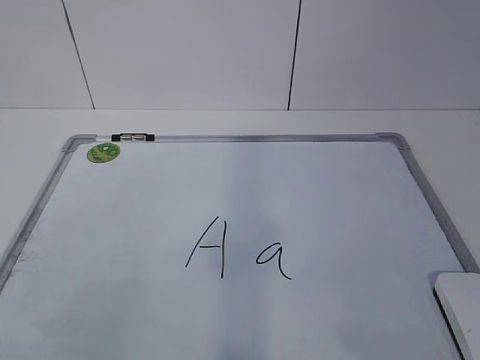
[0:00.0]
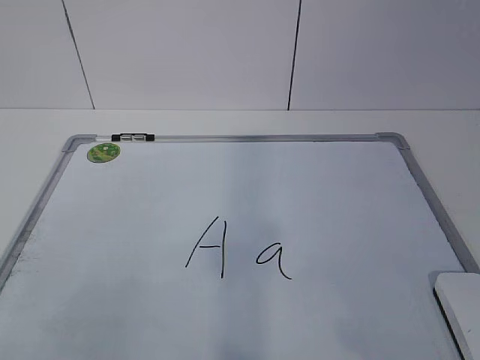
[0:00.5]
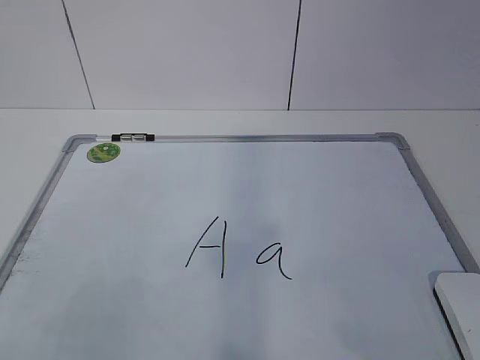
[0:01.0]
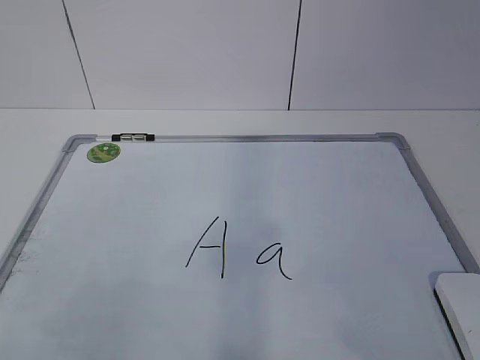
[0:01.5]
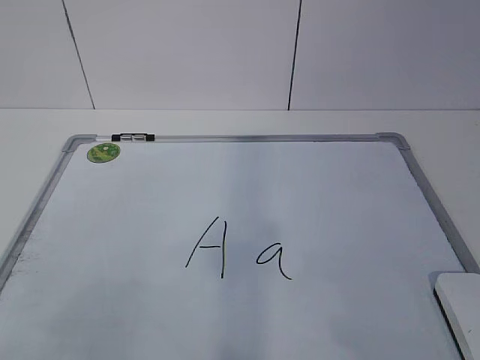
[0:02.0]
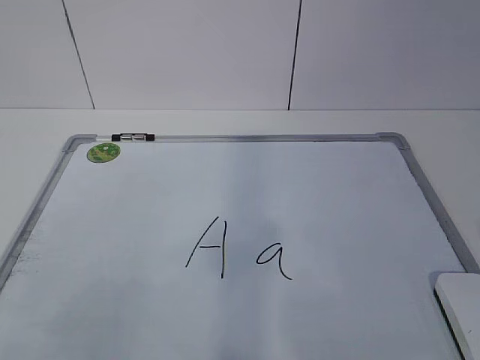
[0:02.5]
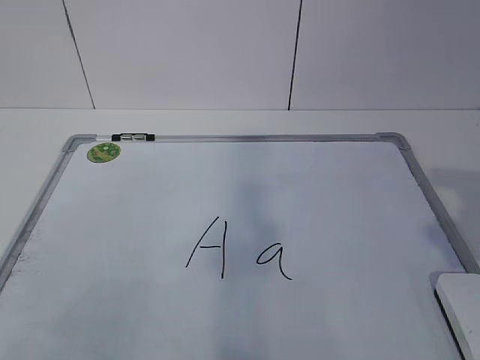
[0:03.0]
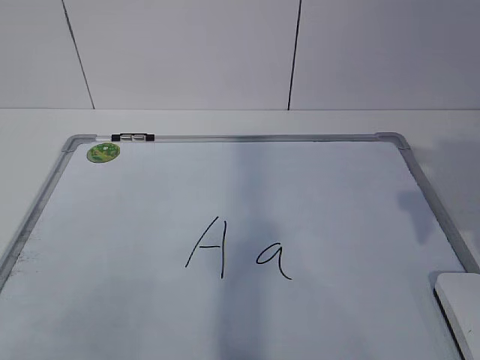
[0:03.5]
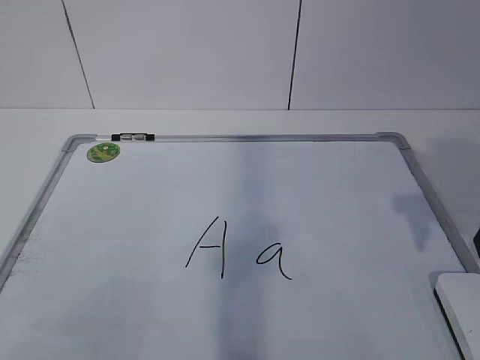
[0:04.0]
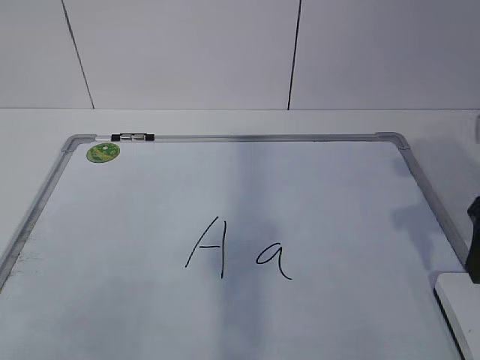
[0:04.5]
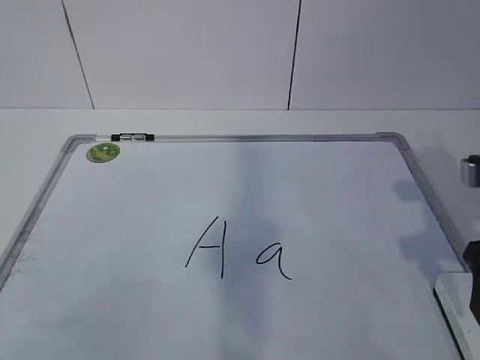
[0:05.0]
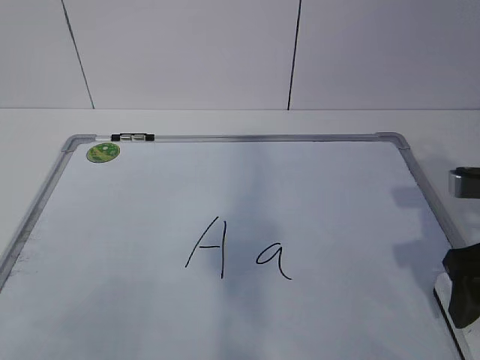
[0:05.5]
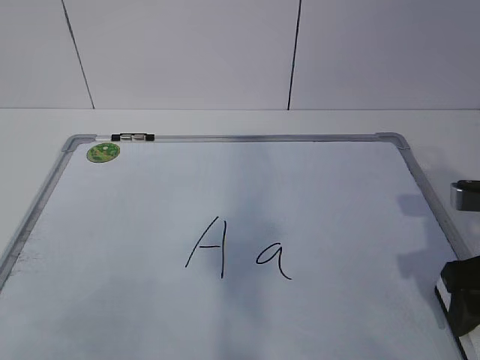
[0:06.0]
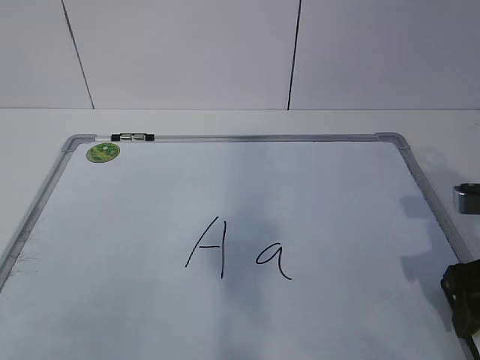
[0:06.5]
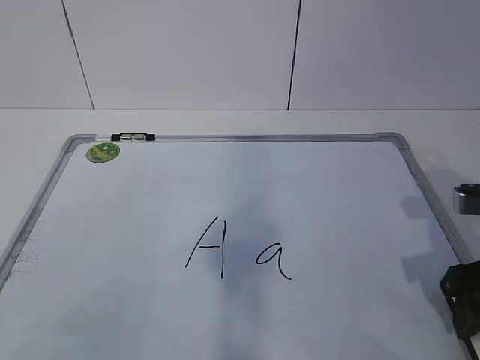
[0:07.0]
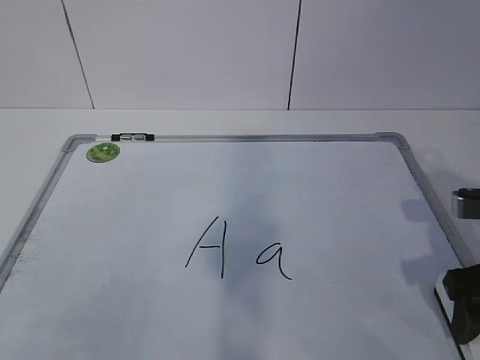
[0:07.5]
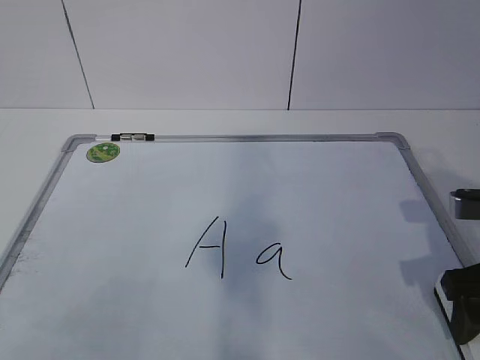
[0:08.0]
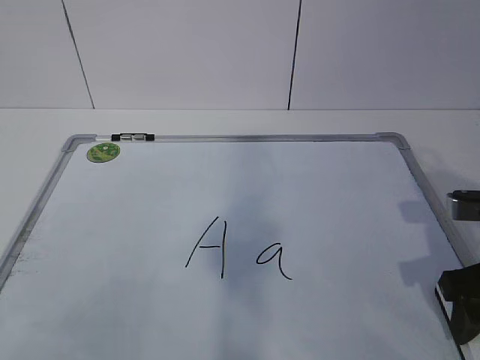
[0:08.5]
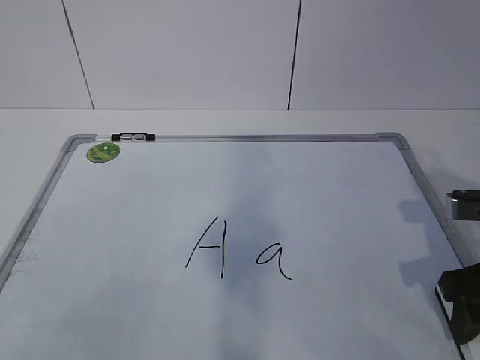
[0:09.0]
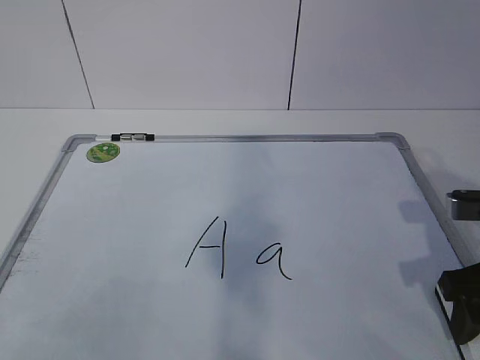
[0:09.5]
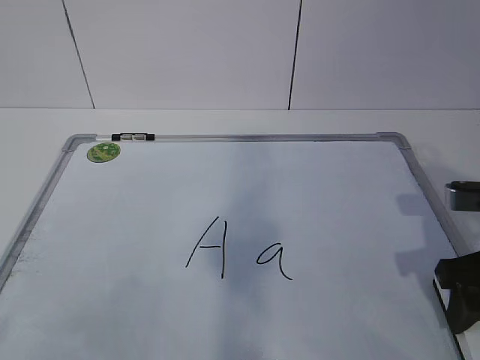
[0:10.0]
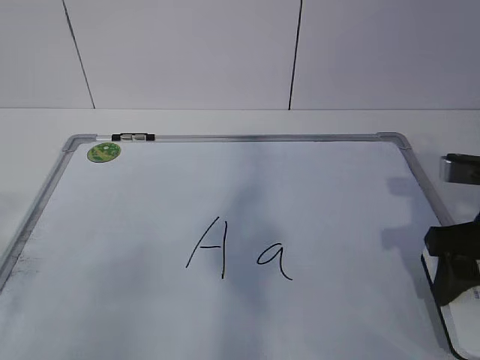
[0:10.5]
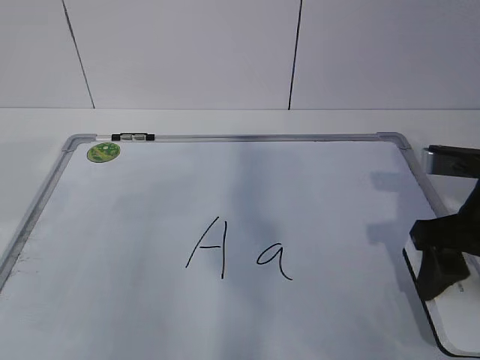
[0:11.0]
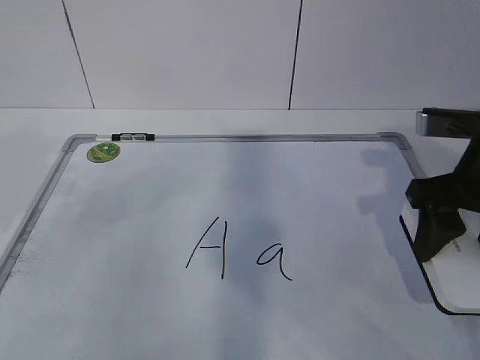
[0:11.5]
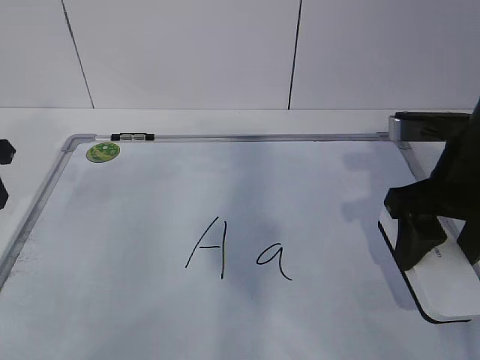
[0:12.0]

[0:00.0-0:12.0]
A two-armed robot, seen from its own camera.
Task of the whole recording: pick up the eraser on the blackboard and erase the letter "a".
Step, 0:00.0 to 0:08.0: Grab the eraser with your right hand.
Step, 0:08.5 to 0:11.5: Hold the drawing board steady with your left hand.
0:02.0 to 0:04.0: The right gripper is displaced forward by some 20 cm, and opens.
0:04.0 to 0:06.0: The right gripper shifts approximately 10 cm downward.
0:06.0 to 0:08.0: Neither gripper changes place.
0:08.0 to 0:10.0: The right gripper closes its fingers.
0:10.0 to 0:12.0: The right gripper is displaced upward by about 5 cm.

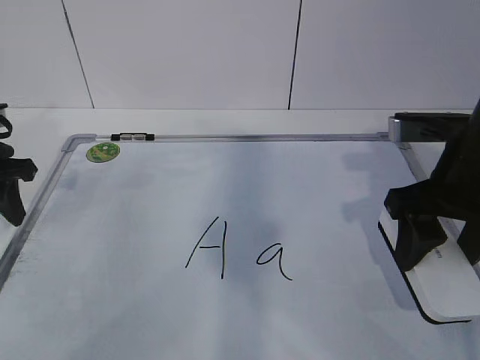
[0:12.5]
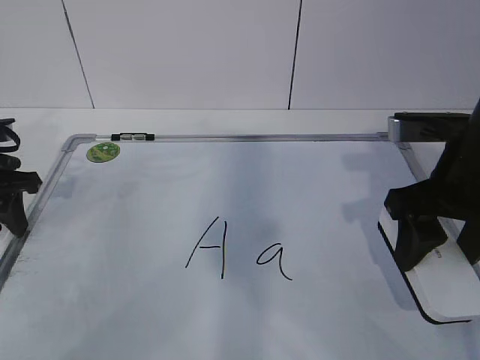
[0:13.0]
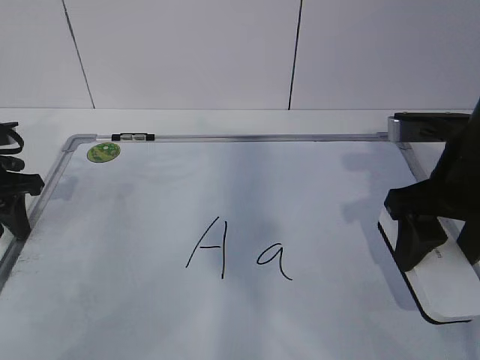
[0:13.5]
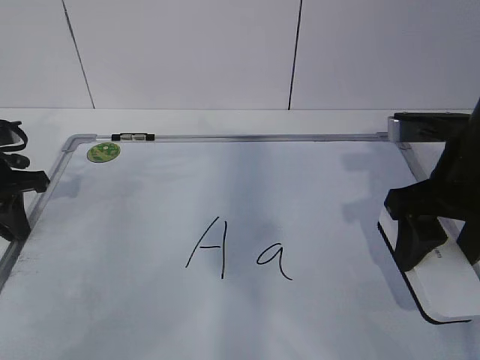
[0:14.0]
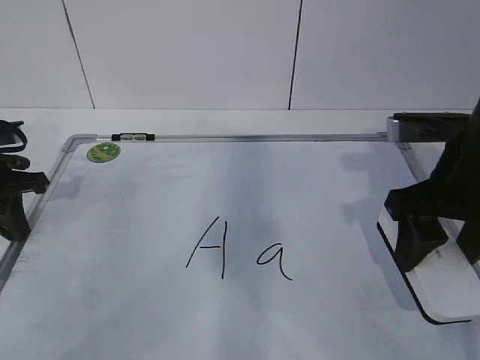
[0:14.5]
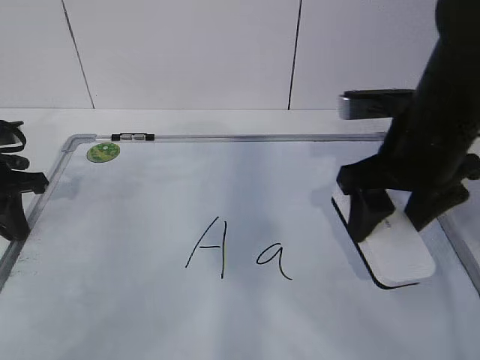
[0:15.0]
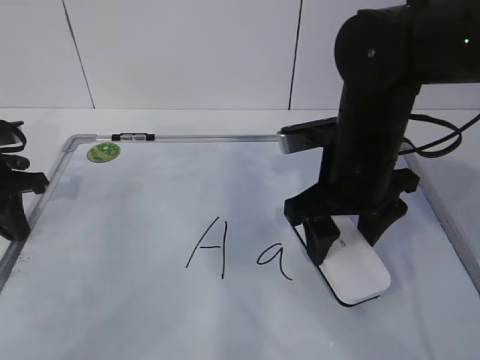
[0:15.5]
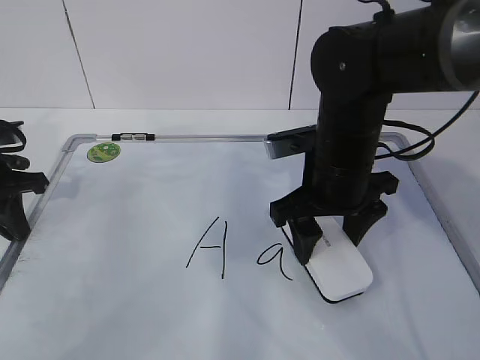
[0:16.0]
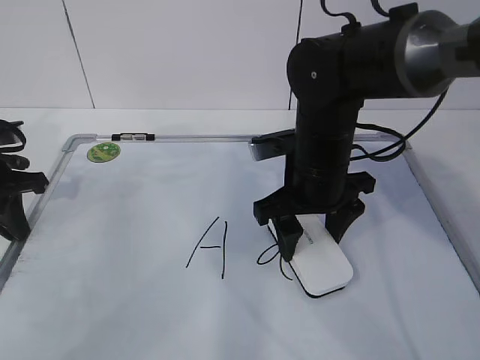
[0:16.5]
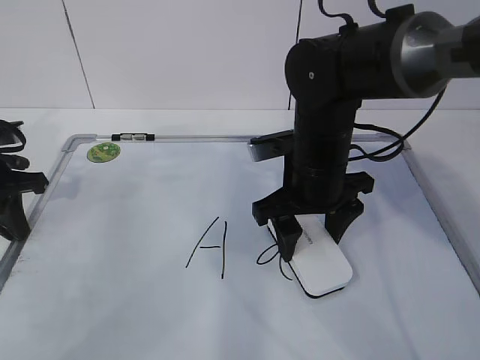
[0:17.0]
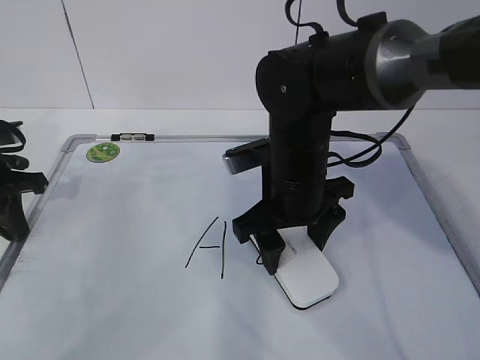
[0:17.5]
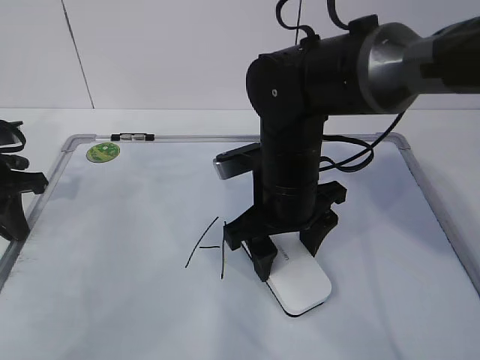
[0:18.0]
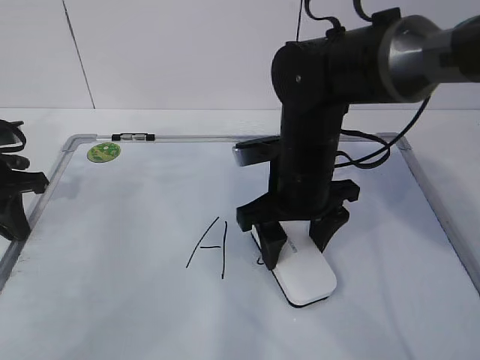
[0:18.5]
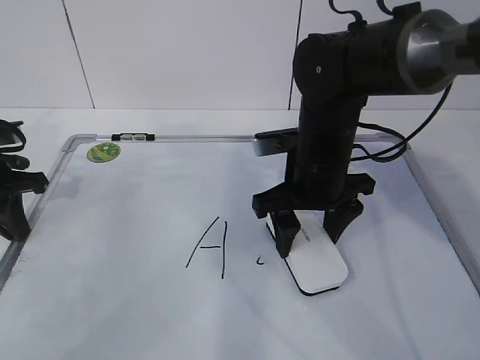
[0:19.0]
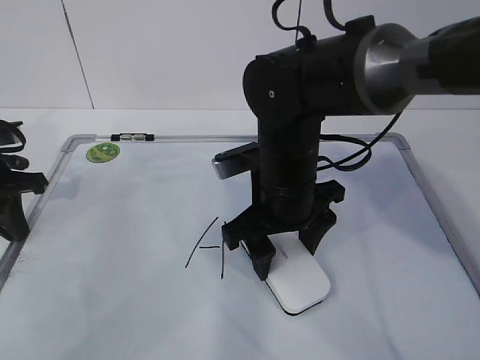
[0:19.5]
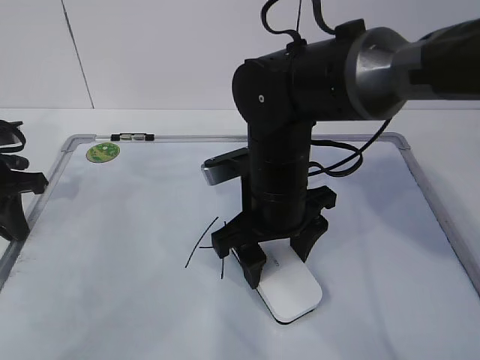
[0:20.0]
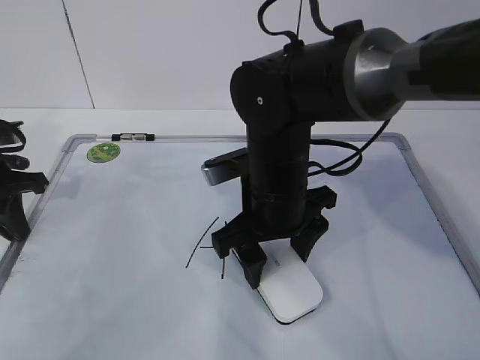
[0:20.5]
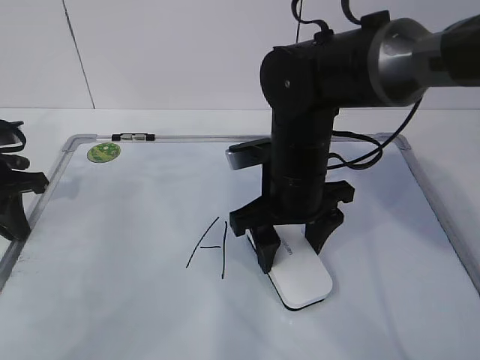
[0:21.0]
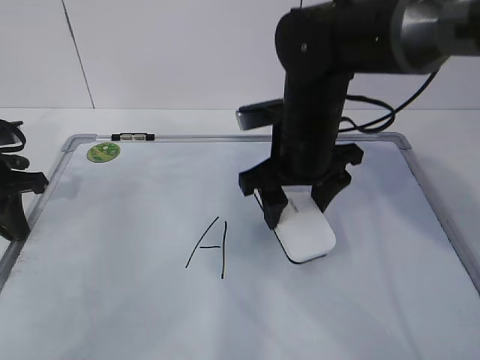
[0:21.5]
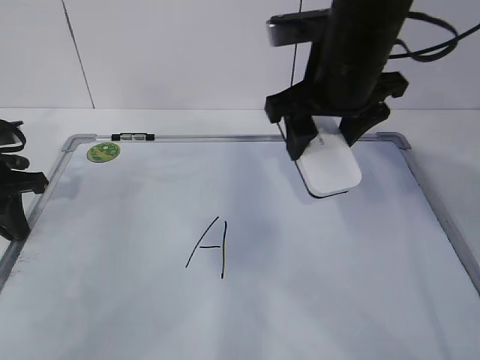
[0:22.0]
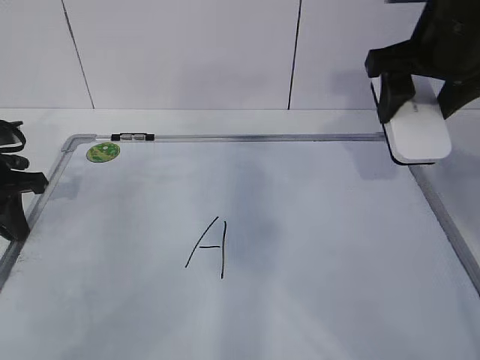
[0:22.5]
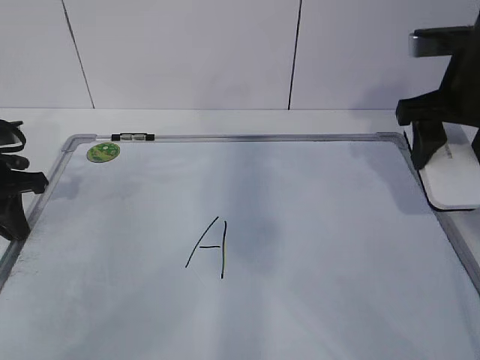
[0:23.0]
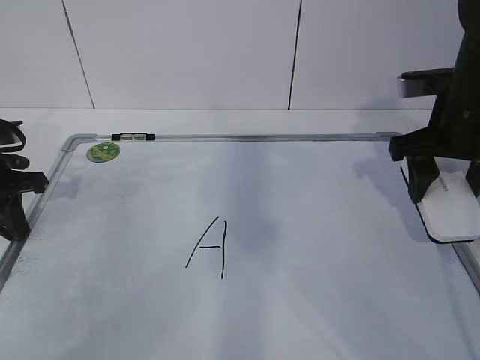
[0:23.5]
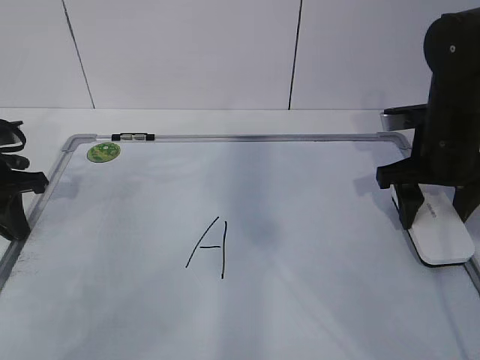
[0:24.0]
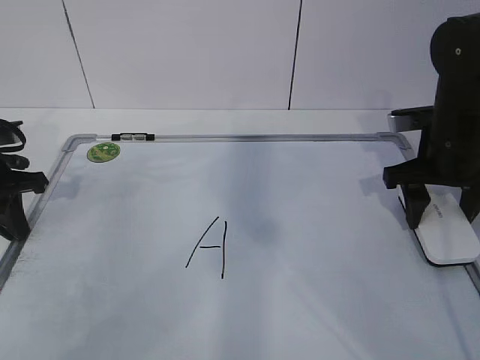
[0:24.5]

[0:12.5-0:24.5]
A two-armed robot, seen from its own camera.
Task of the whole recording: pick up the eraser on the blackboard and erase the letter "a".
Step, 0:12.5 to 0:17.5: Erase the letter a with your right hand.
Step, 0:18.0 to 0:21.5: Put down the eraser with your right hand.
0:12.5 to 0:14.5: The left gripper closes its fingers.
0:14.5 to 0:16.5: The right gripper moves to the left, forward and downward, approximately 15 cm.
0:16.5 to 0:20.5: There are only small adjustments of the grippers.
0:20.5 to 0:22.5: The right gripper moves to the right and upward, approximately 20 cm.
0:22.5 to 0:24.5: The right gripper shifts about 15 cm downward.

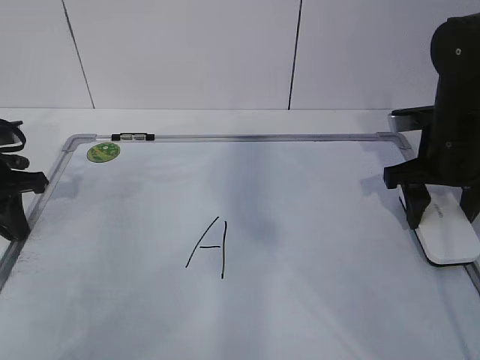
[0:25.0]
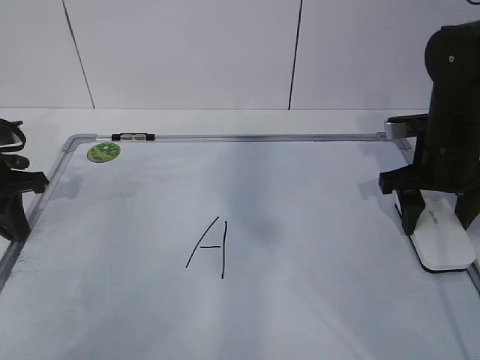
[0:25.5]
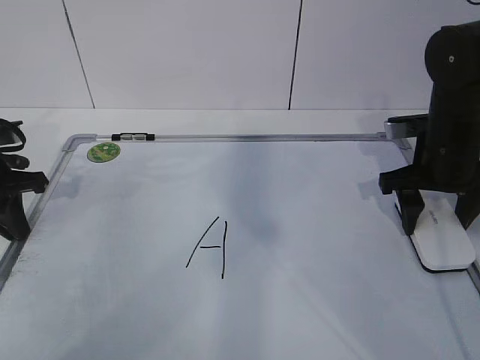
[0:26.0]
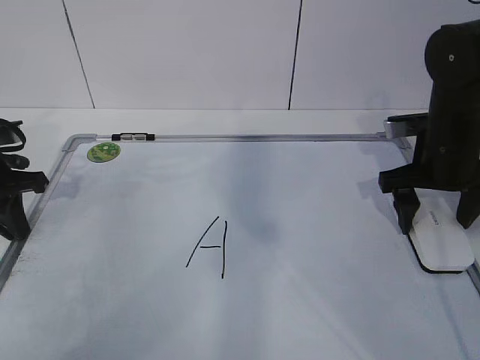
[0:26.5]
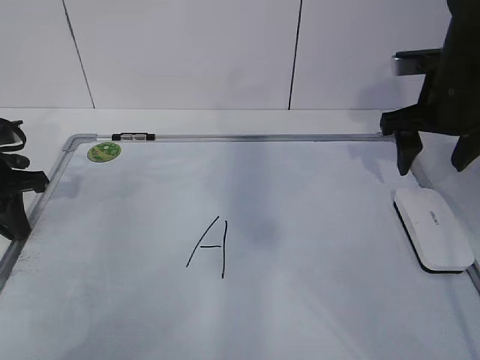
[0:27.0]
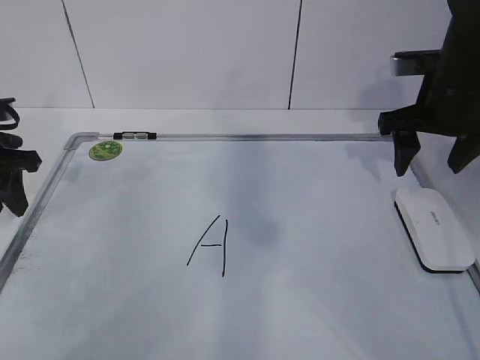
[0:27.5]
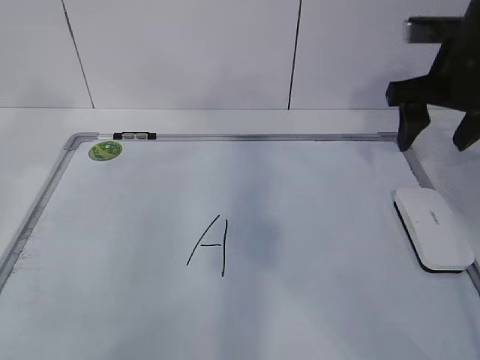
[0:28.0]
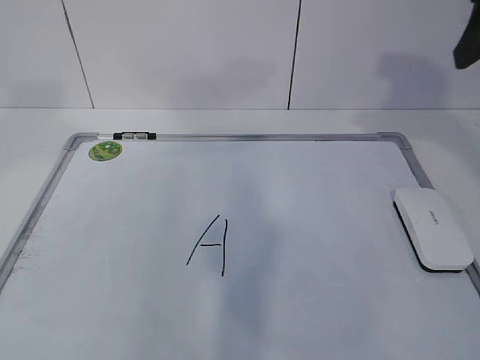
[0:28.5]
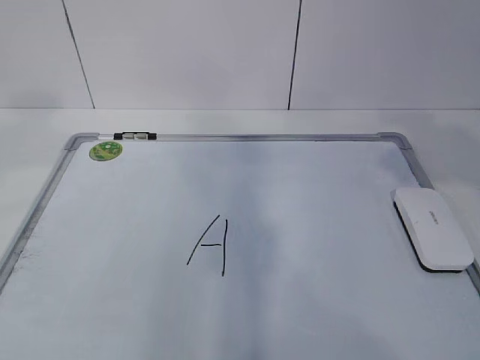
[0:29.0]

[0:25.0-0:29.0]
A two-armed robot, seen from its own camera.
Task of the whole recording: pick up the eraser on the blackboard and erase the letter "a".
0:25.0 to 0:27.0: The right gripper moves approximately 5 cm, and opens up.
0:27.0 to 0:29.0: The left gripper shifts about 35 cm upward and backward, and opens. The right gripper moves backward and upward, roughly 25 cm.
